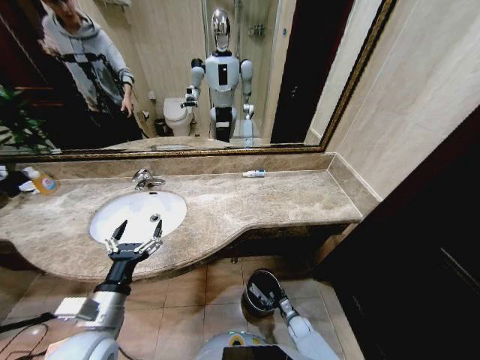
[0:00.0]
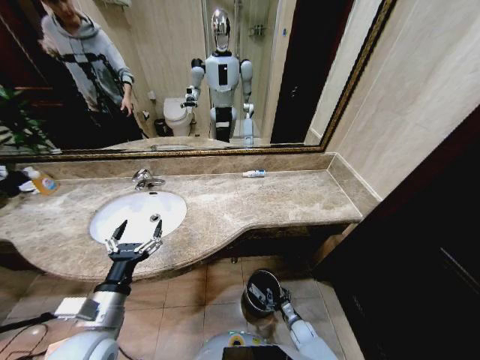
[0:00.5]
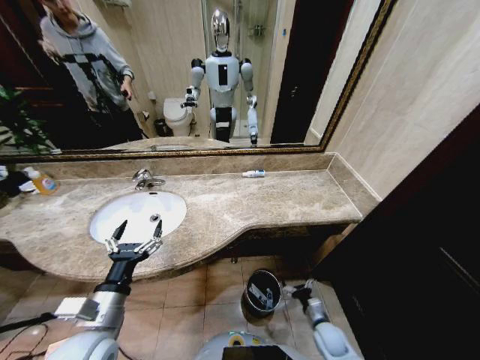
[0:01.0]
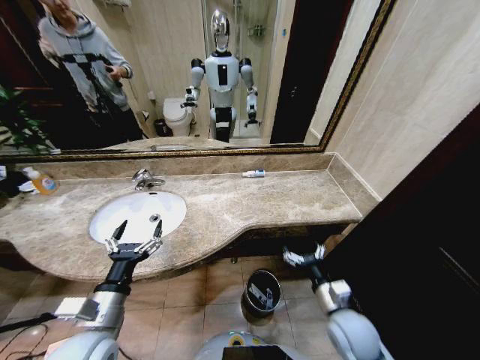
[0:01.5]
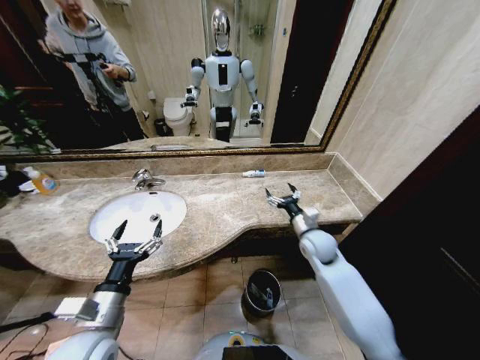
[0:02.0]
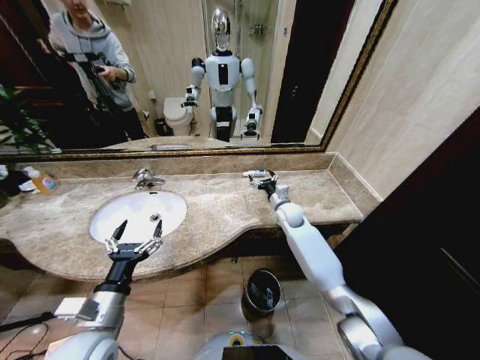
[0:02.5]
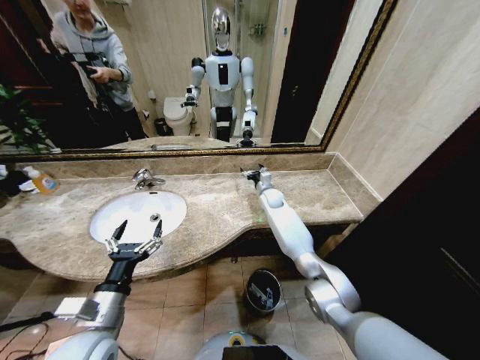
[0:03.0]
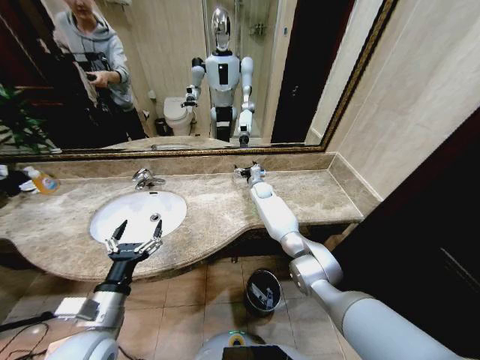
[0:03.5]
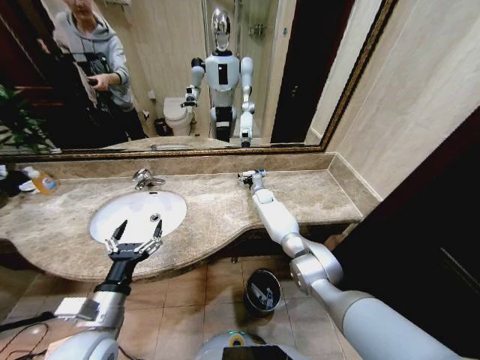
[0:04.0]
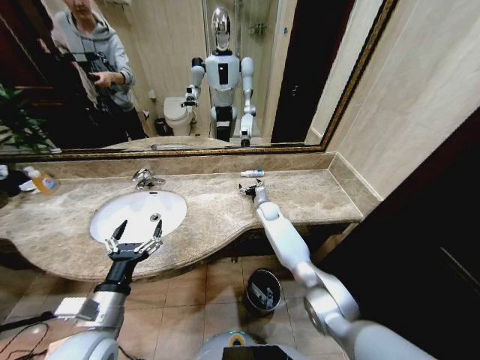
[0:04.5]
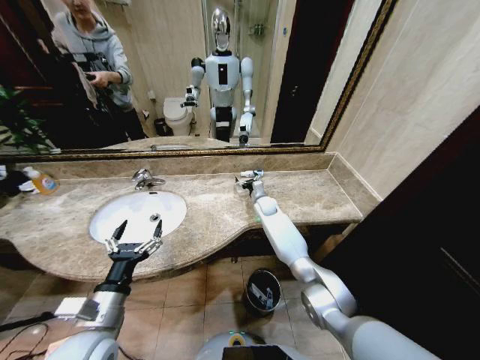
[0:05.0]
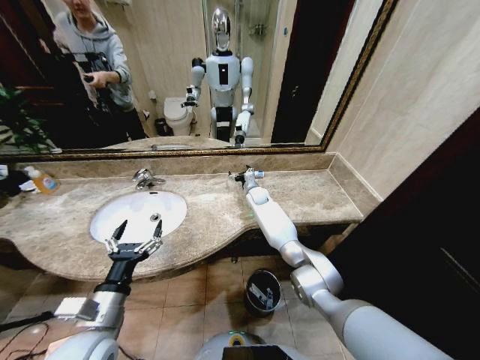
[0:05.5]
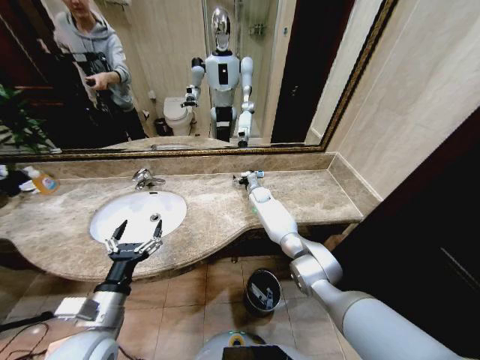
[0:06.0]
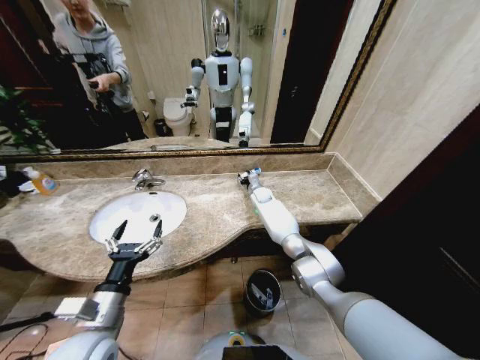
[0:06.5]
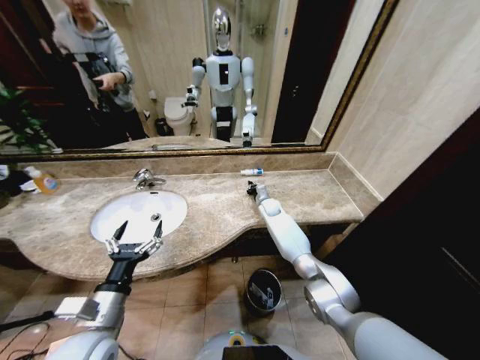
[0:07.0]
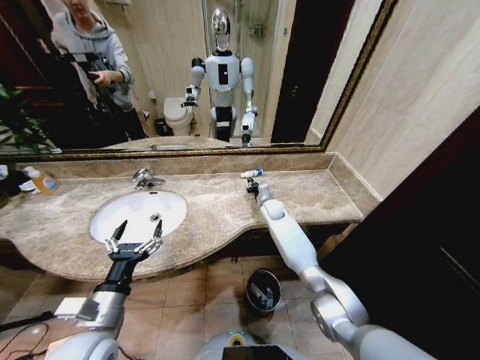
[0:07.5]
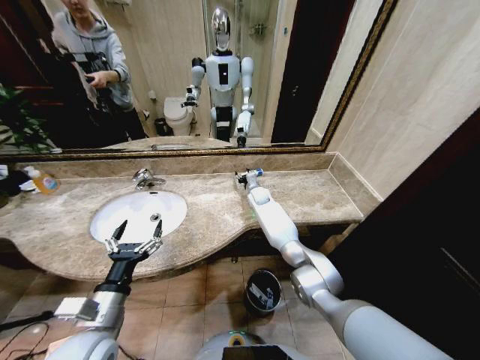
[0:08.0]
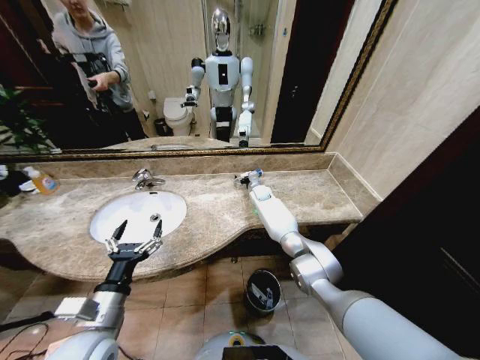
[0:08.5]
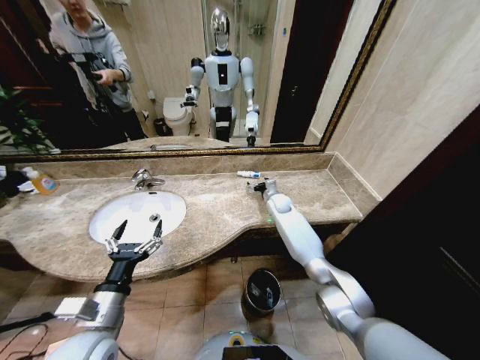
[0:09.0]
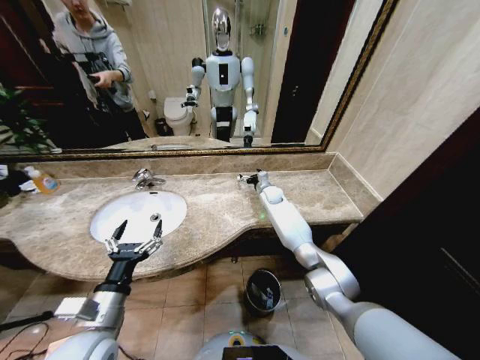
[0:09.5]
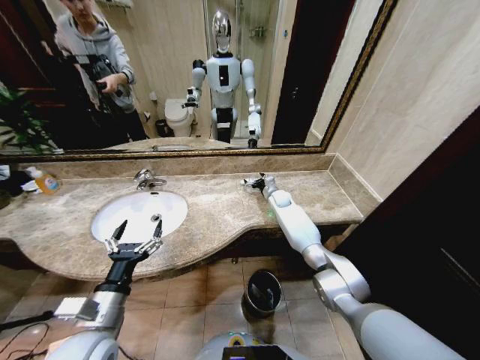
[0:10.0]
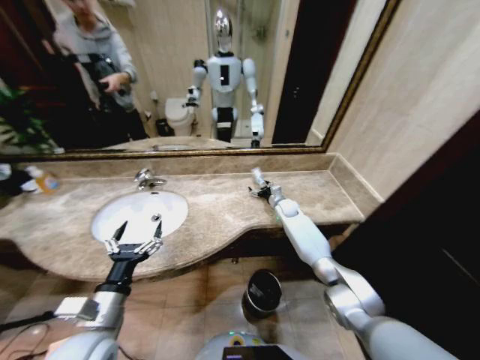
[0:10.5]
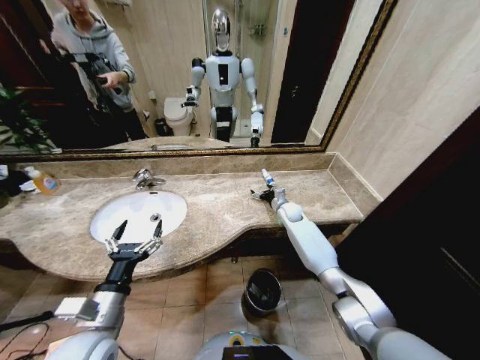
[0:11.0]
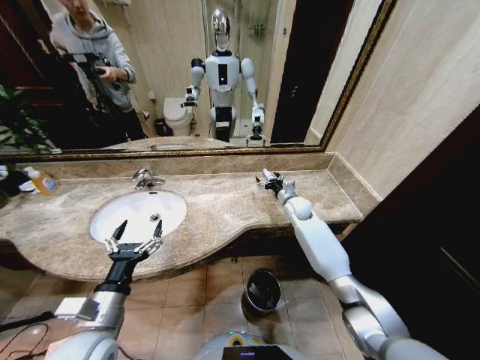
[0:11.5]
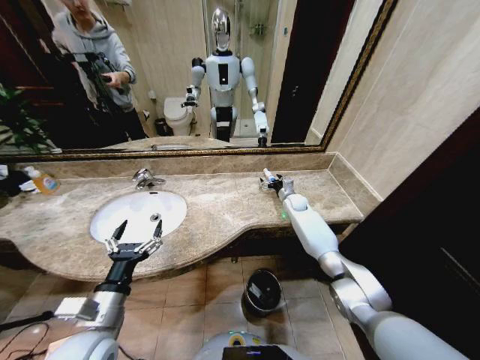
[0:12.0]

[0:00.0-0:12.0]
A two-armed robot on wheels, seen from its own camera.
Task of the whole recording: Pick up the trash from the sink and place it in the trash bin.
0:00.0 to 0:02.0: The right gripper goes some 40 cm upward, and opens.
0:02.0 to 0:04.0: The right gripper heads forward and to the left, covering roughly 30 cm.
0:06.0 to 0:08.0: The right gripper travels backward and back again, some 10 cm each way, and closes up.
0:08.0 to 0:10.0: The right gripper travels to the right by roughly 10 cm, and opens up.
0:10.0 to 0:12.0: The right gripper goes roughly 5 cm to the right, and reaches roughly 10 cm backward, then returns.

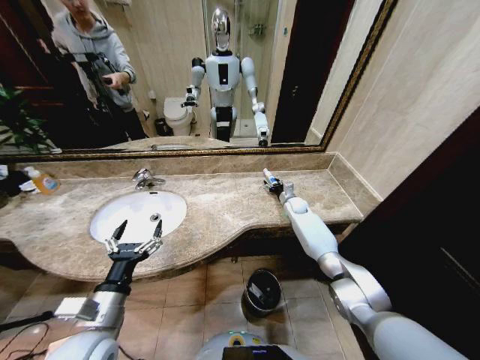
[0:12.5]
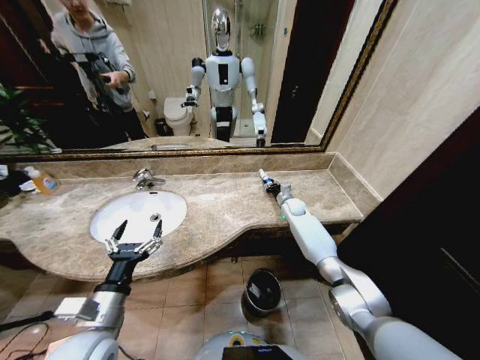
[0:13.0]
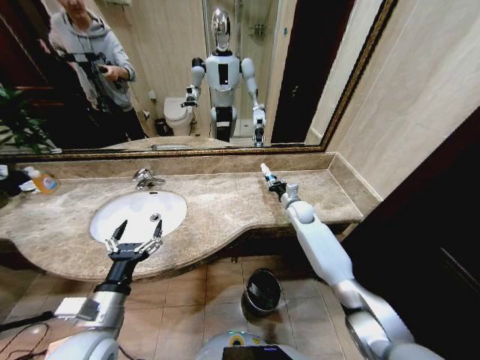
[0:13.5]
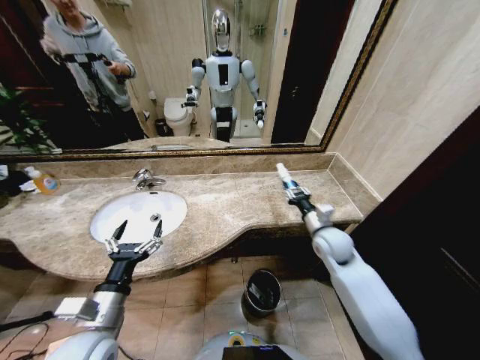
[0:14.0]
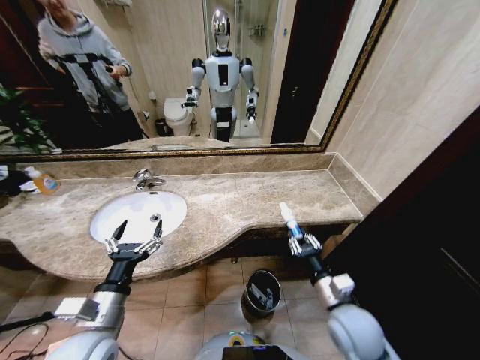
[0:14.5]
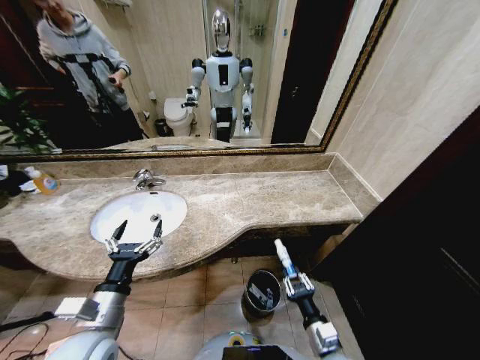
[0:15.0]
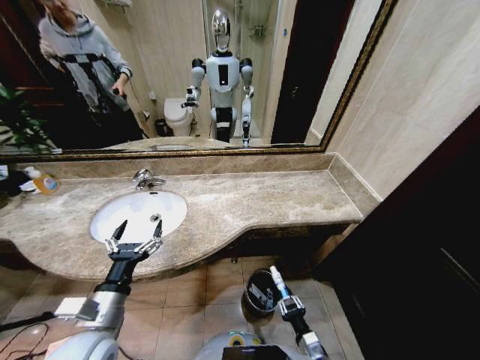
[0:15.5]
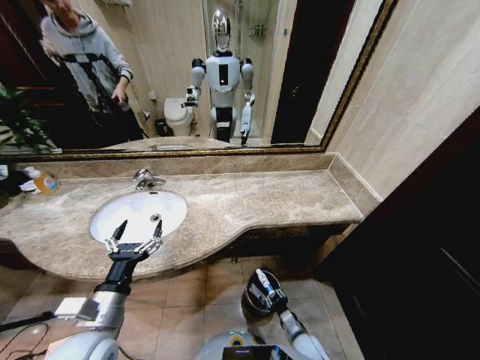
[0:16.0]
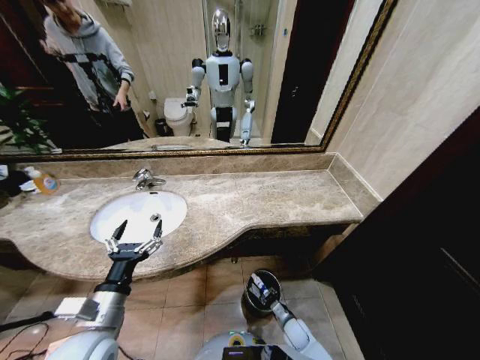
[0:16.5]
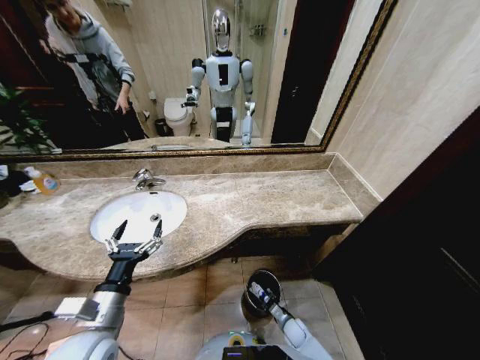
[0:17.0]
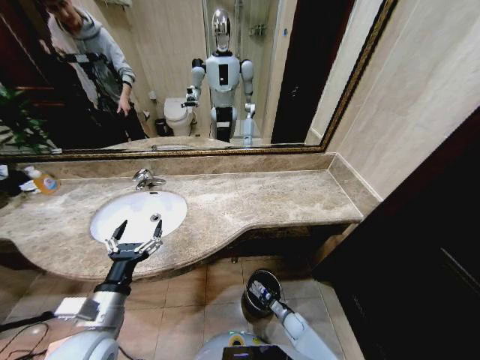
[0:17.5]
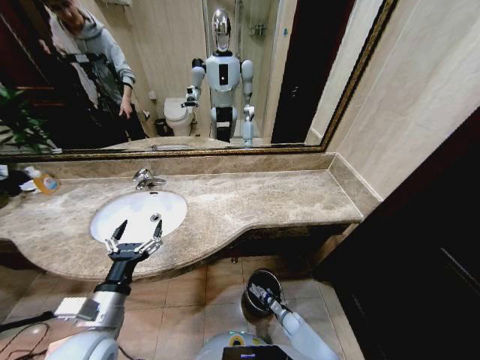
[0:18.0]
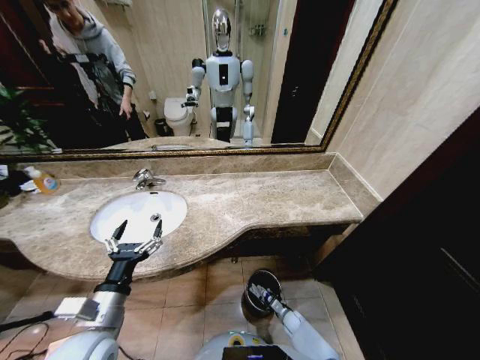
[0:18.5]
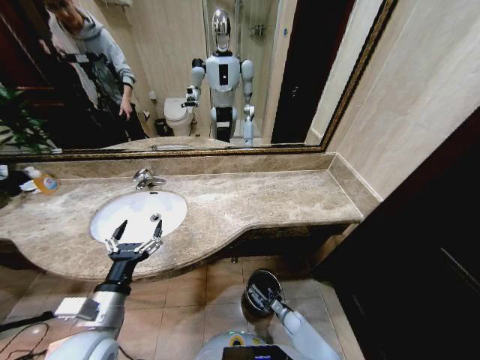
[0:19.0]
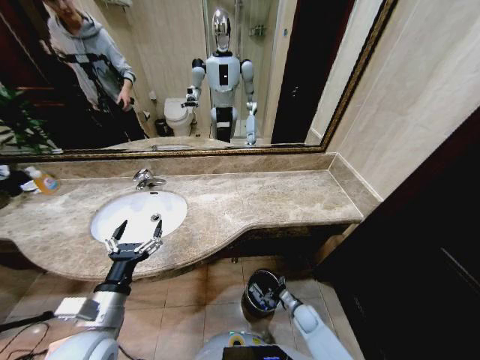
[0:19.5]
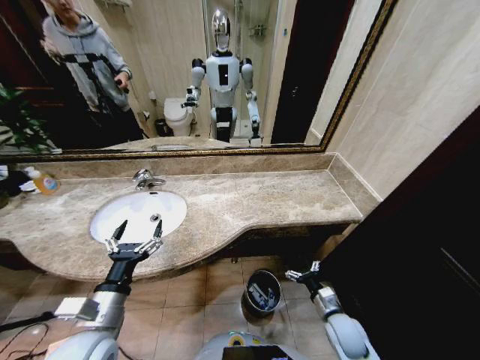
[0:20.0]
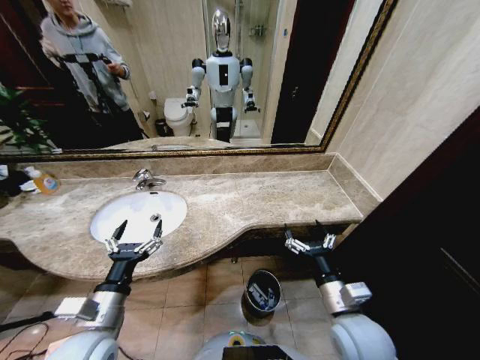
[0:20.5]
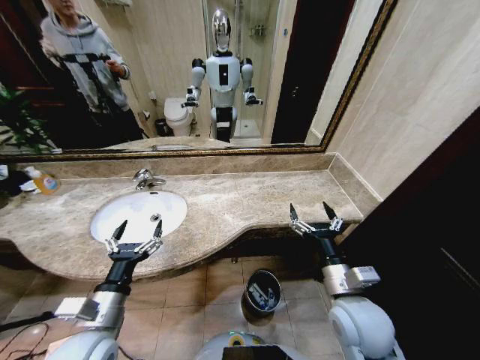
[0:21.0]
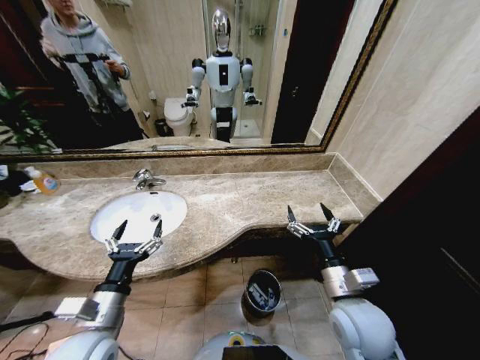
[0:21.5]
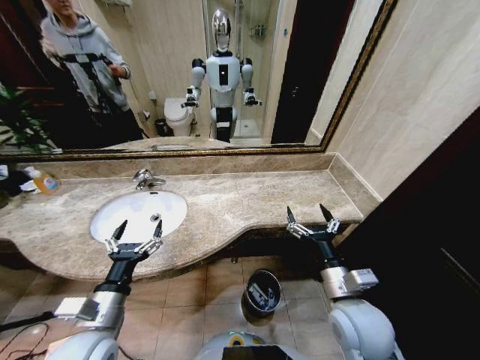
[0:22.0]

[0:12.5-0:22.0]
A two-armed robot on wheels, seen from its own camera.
Task of the whole recording: Pick up the trash from the sink and place it in the trash bin.
0:12.5 to 0:14.5: The right gripper is displaced backward by roughly 40 cm.
0:14.5 to 0:16.5: The right gripper moves downward, some 30 cm.
0:16.5 to 0:18.0: The right gripper moves downward, some 10 cm.
0:18.0 to 0:20.0: The right gripper heads upward, covering about 25 cm, and opens.
0:20.0 to 0:22.0: The right gripper shifts approximately 20 cm upward.
